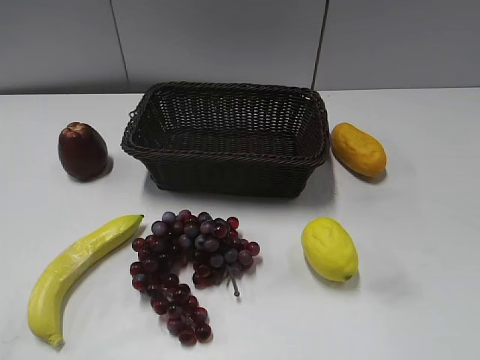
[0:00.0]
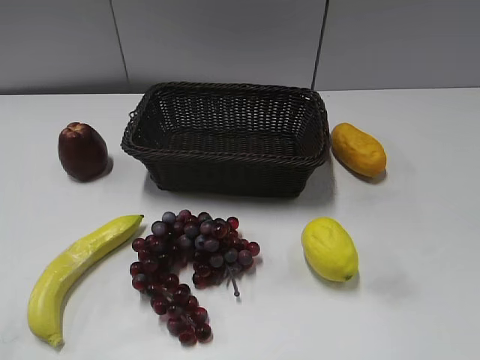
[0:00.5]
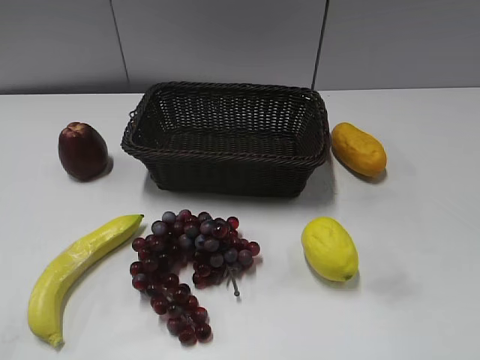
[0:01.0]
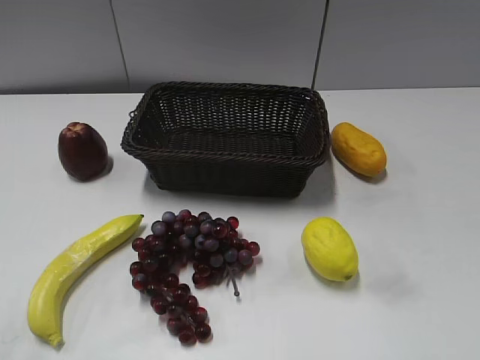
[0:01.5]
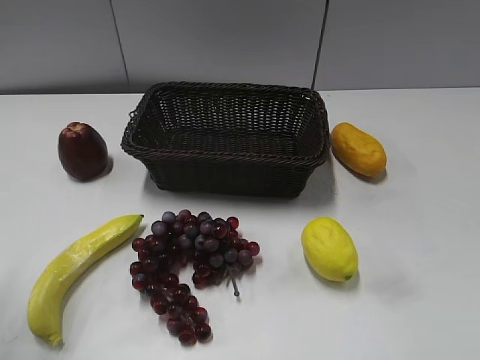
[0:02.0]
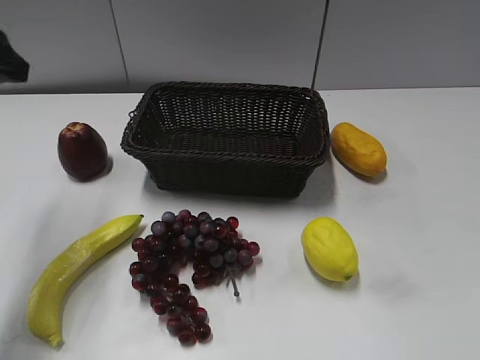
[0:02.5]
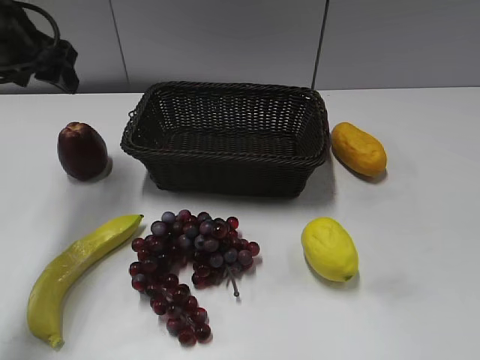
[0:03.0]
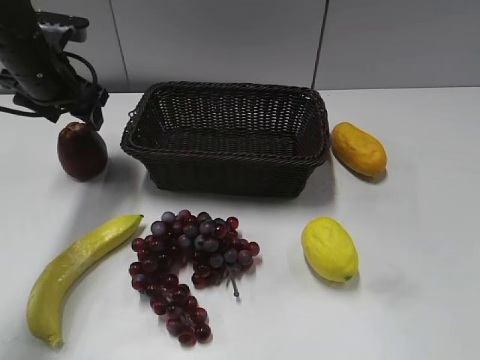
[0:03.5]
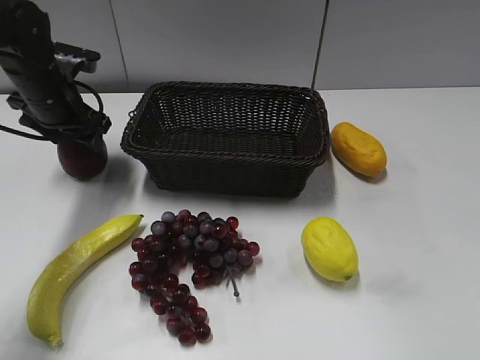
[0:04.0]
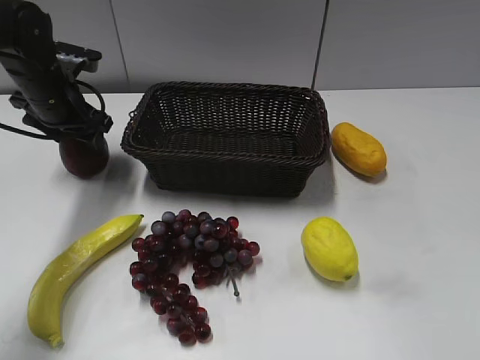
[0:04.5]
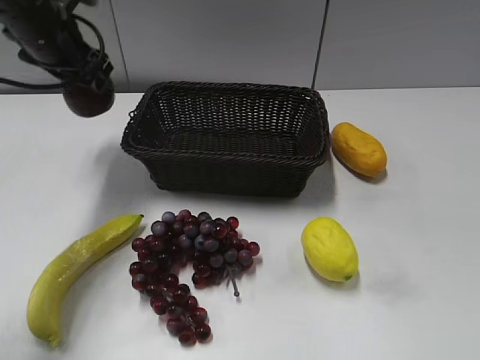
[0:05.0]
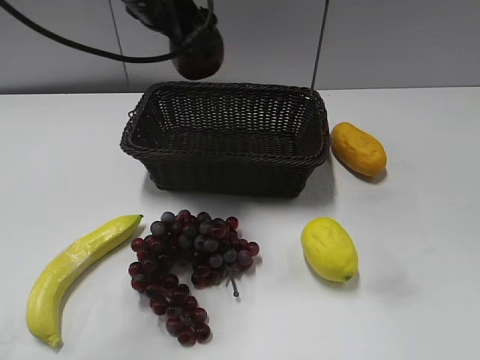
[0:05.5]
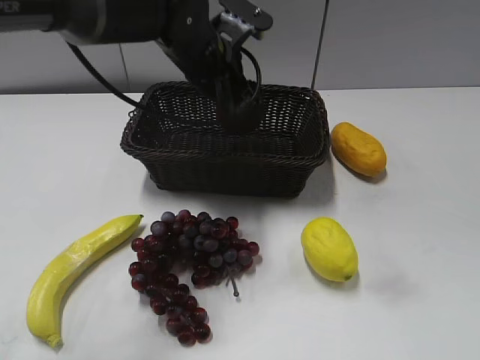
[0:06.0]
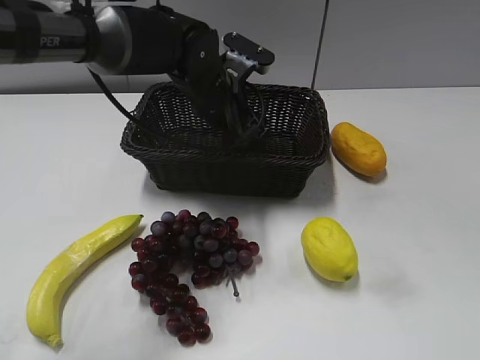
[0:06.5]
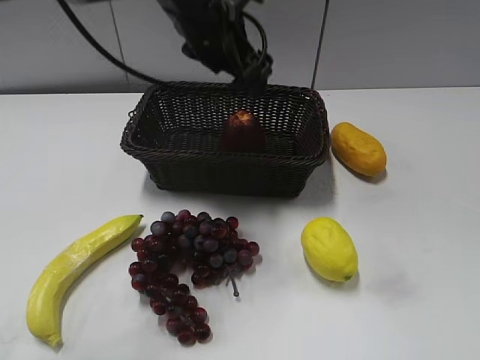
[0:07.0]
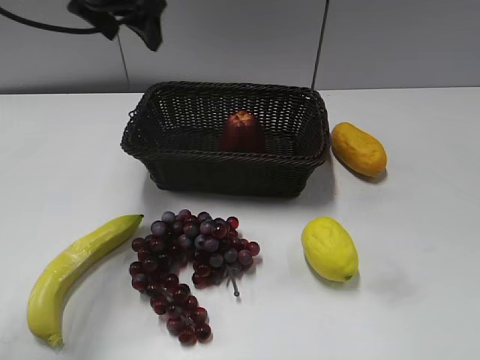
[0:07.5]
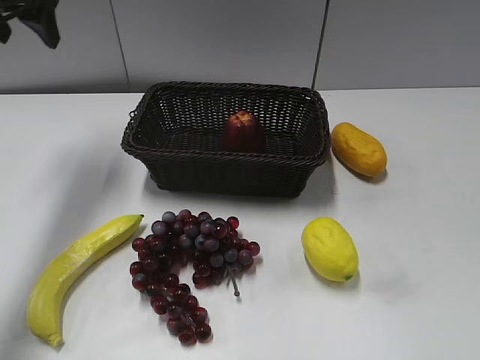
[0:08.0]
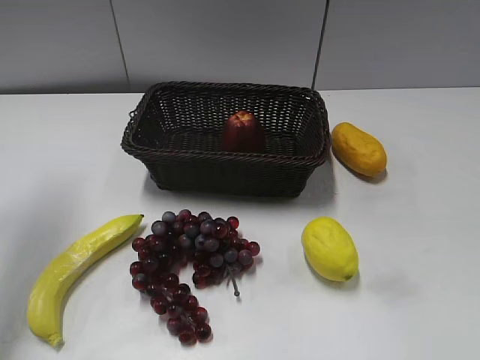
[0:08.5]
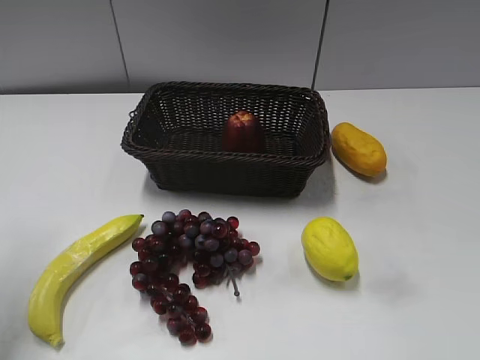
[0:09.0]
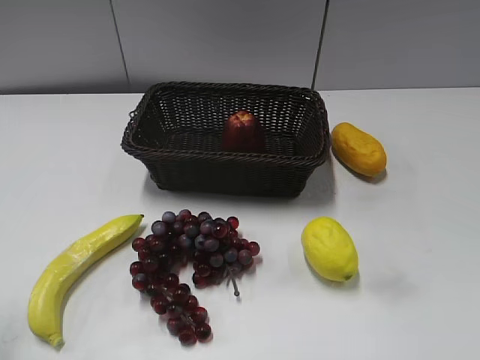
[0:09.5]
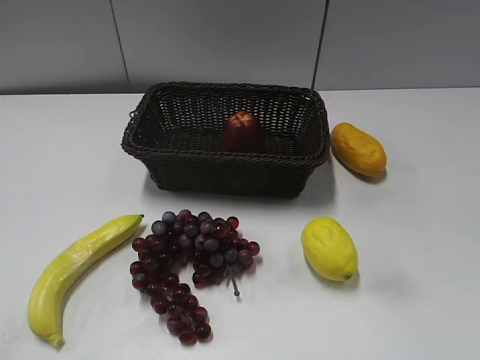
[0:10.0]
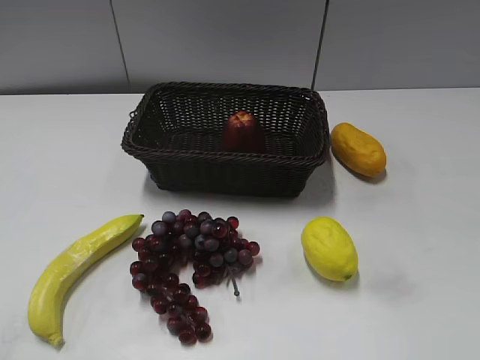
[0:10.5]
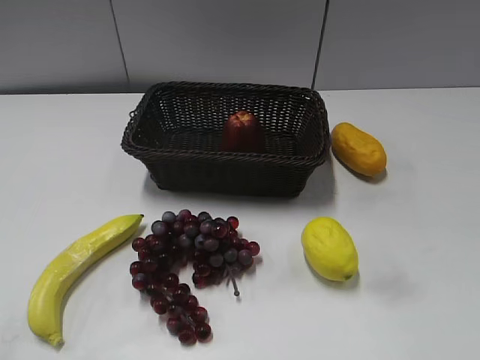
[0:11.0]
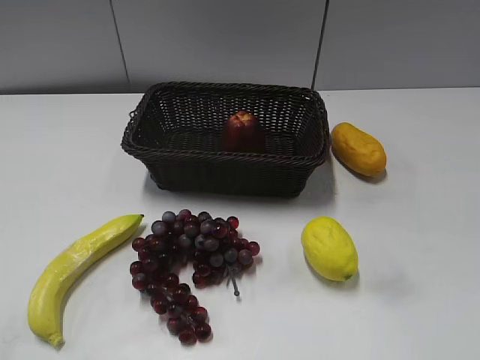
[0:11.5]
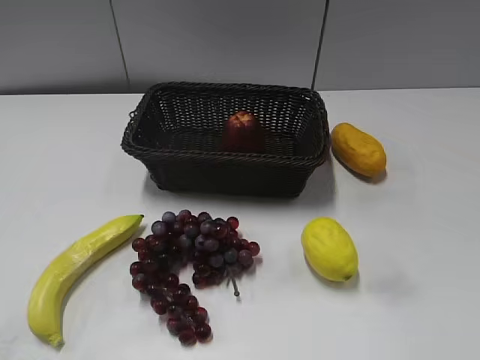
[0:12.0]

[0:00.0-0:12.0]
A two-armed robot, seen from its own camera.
Step, 0:02.5 to 0:04.0: Grasp the apple with left gripper.
Step, 0:04.5 to 0:06.5: Place the apple in the basket with left gripper.
0:02.0 to 0:04.0: The left gripper travels forward and downward by approximately 30 cm.
0:04.0 to 0:06.0: The left gripper heads to the right, covering some 20 cm.
0:06.0 to 0:08.0: The left gripper travels to the left and upward by about 25 cm, and opens, then closes once more.
0:08.0 to 0:10.0: The left gripper travels backward by some 35 cm.

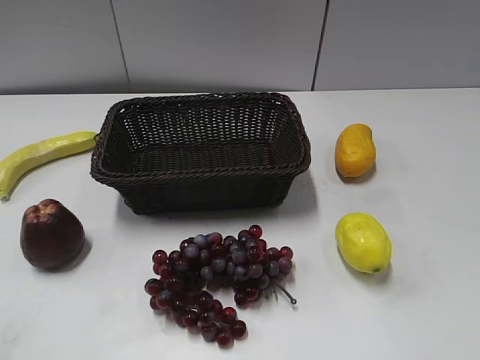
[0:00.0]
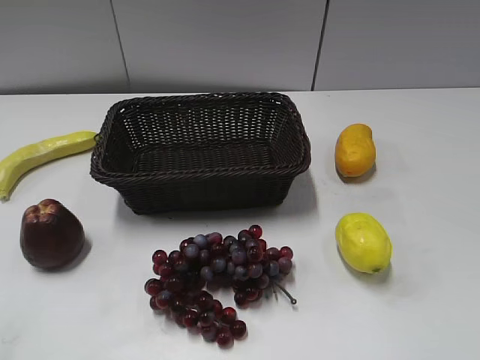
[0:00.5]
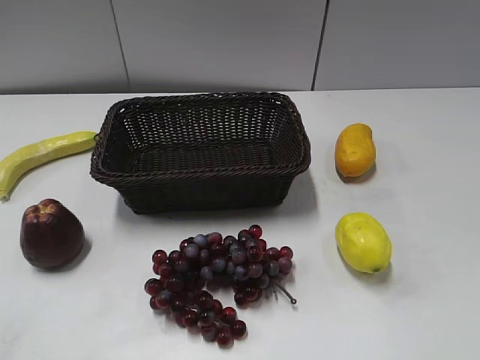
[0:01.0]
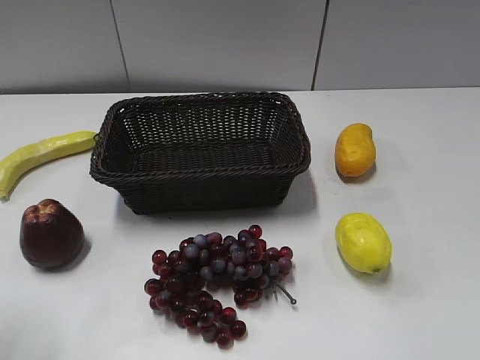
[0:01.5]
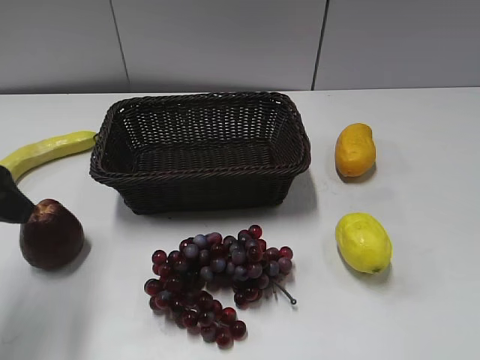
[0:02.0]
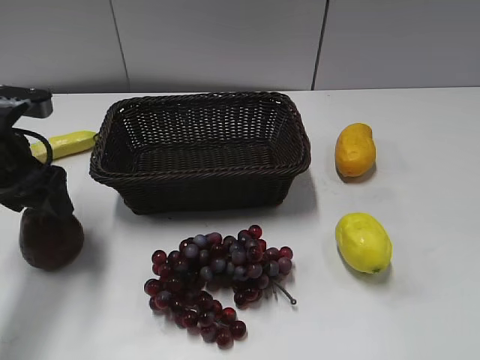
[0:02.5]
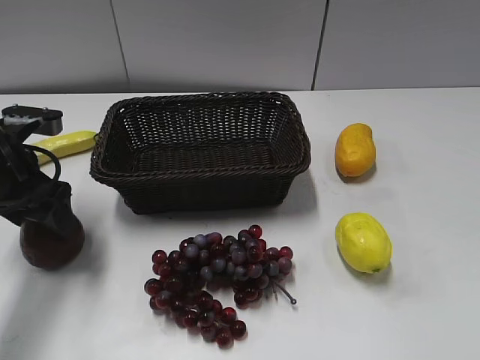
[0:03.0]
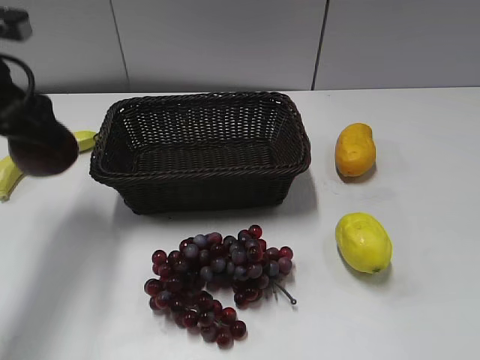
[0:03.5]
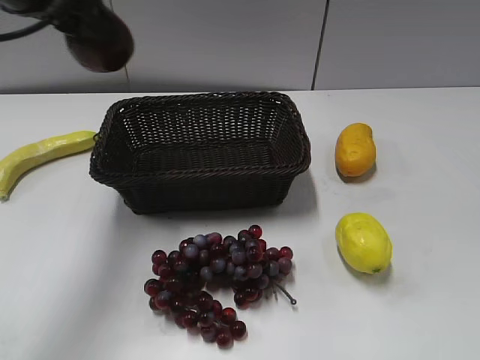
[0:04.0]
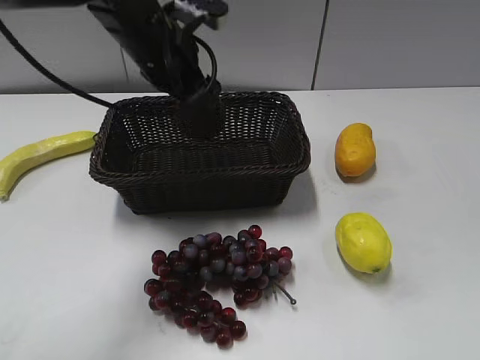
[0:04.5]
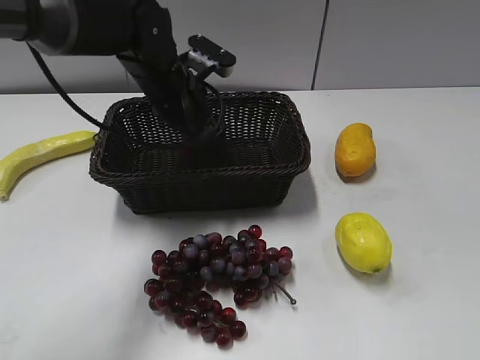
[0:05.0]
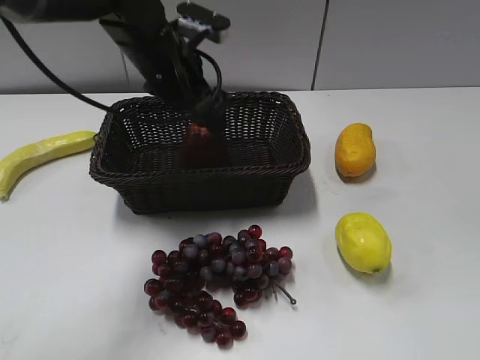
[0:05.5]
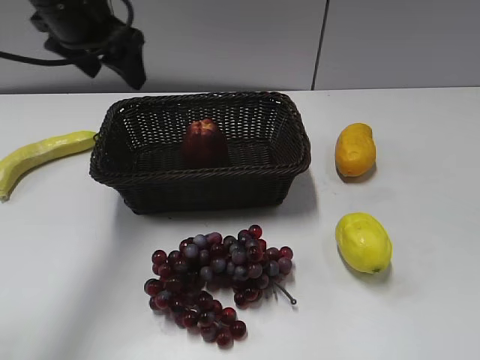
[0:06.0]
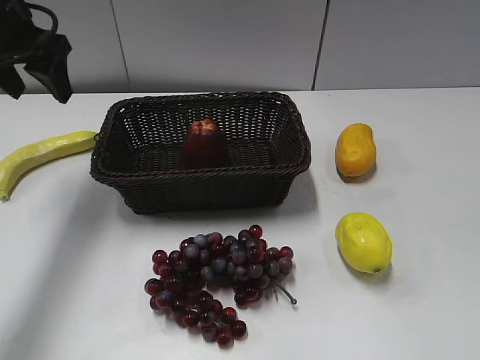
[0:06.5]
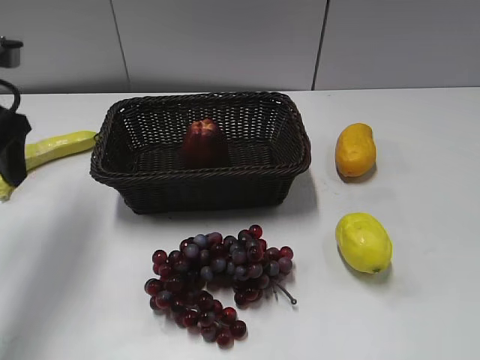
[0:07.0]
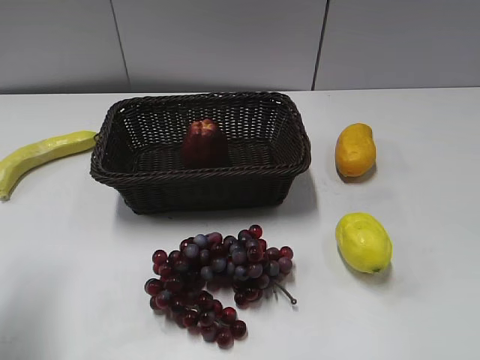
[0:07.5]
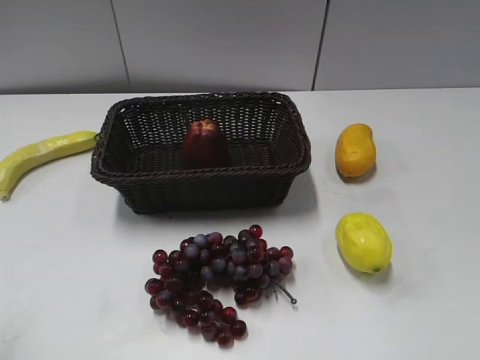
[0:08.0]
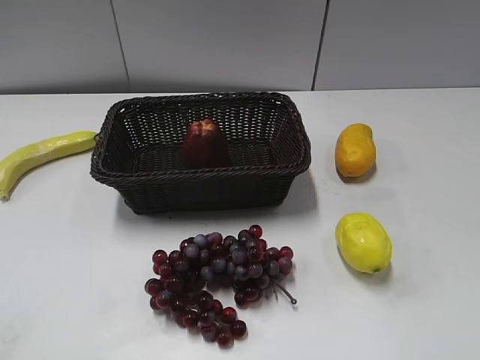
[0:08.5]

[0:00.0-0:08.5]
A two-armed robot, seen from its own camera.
Step, 0:02.0 to 0:02.5: Grasp the apple with left gripper.
Step, 0:03.5 to 0:05.0: Place the apple in the basket with left gripper.
0:02.0 to 0:04.0: The left gripper heads forward, upward and to the right, covering some 20 cm.
0:04.0 to 0:06.5: The left gripper shifts roughly 5 cm to the left, and opens, then closes again.
0:06.5 to 0:08.5: The left gripper goes roughly 35 cm backward.

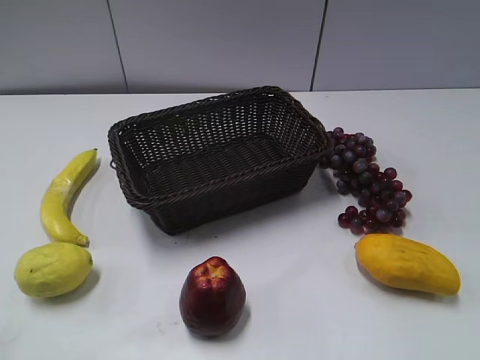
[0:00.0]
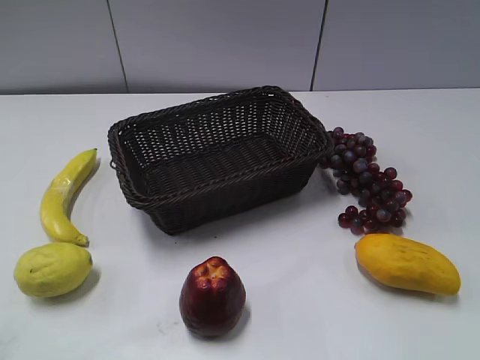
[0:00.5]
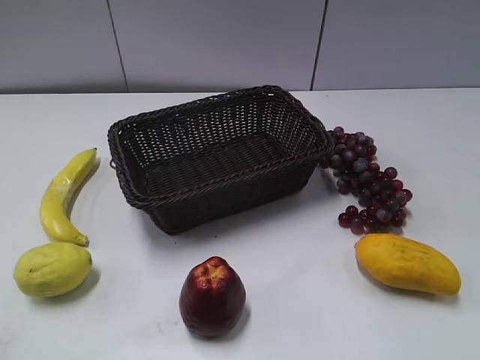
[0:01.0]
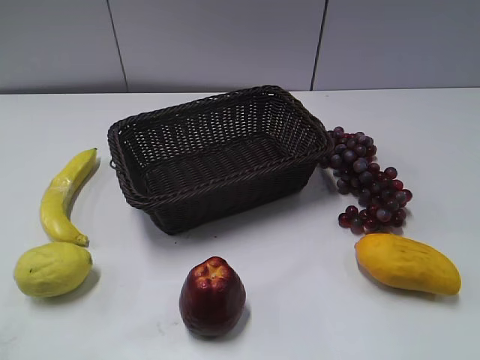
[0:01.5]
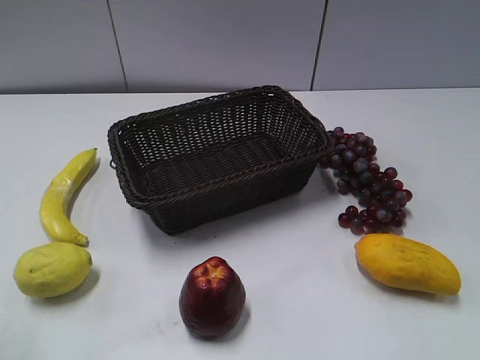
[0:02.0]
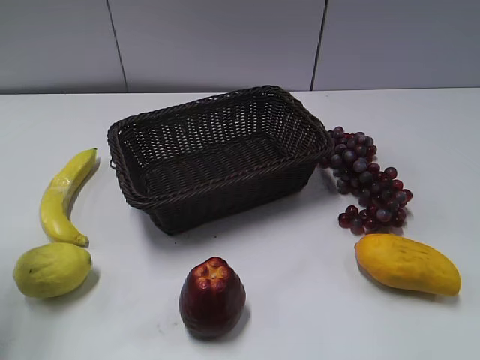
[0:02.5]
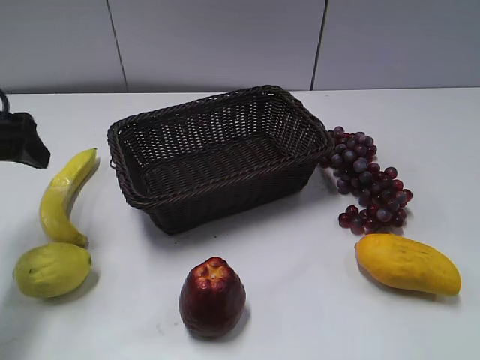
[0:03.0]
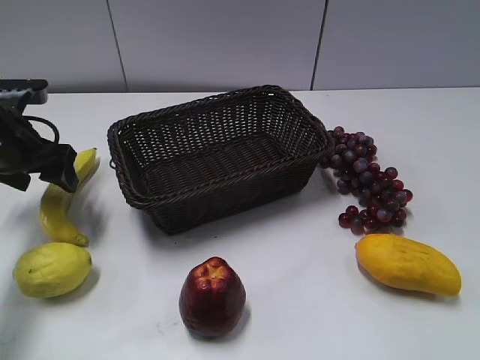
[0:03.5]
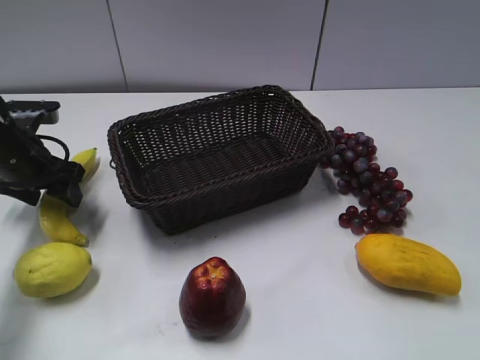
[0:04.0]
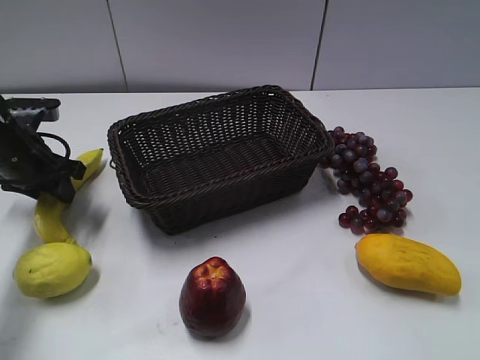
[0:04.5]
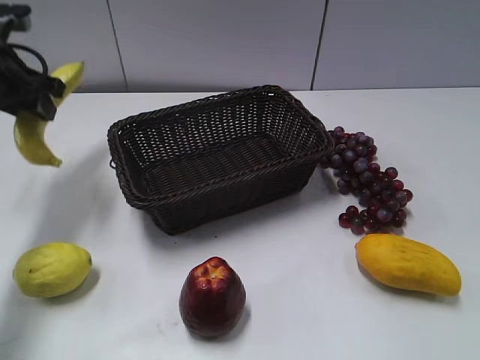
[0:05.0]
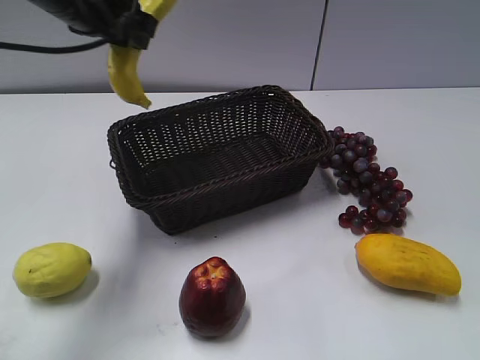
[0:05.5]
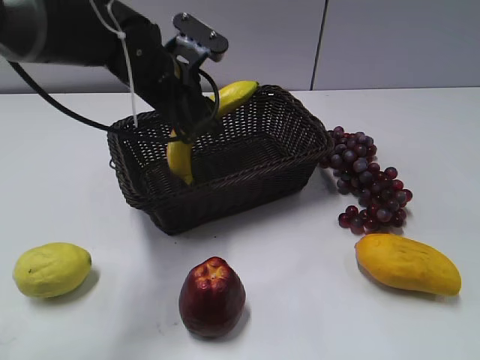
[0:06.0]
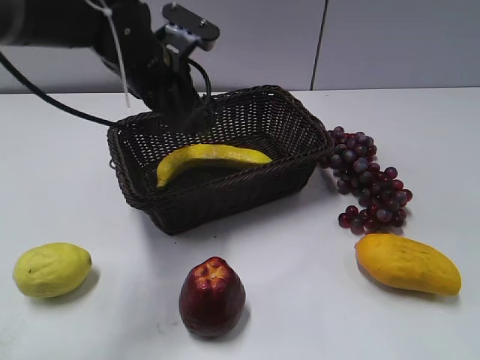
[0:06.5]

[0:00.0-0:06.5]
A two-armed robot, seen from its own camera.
Step, 0:03.0 to 0:04.5: Grasp the banana with left gripper.
Step, 0:05.0 to 0:06.0: Place the banana in the basket with left gripper.
0:02.0 to 0:04.5: The left gripper heads forward and downward, covering approximately 35 cm, and closes up.
0:04.5 to 0:06.5: The left gripper is displaced to the right and upward by about 20 cm, and opens up.
